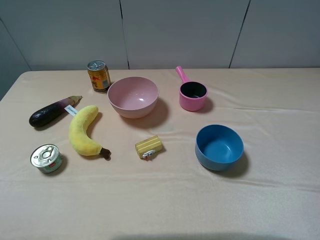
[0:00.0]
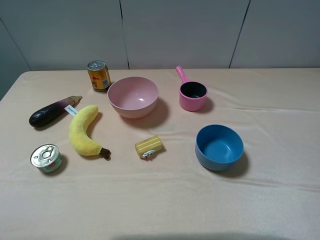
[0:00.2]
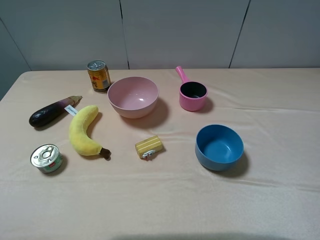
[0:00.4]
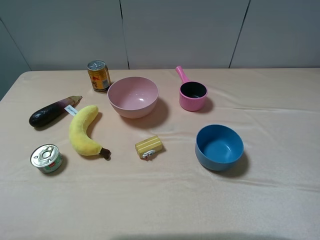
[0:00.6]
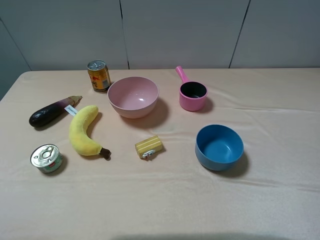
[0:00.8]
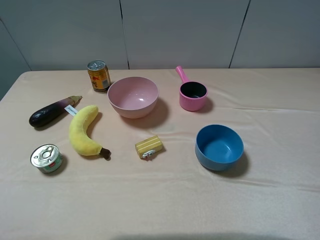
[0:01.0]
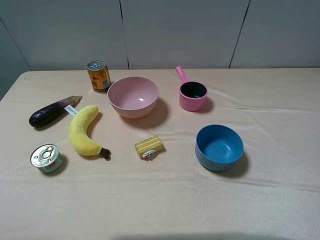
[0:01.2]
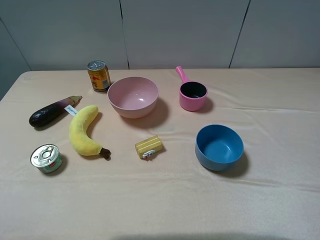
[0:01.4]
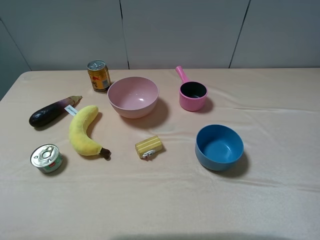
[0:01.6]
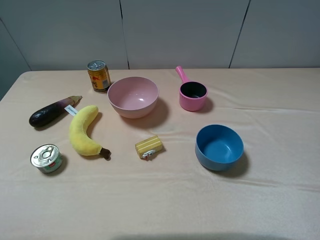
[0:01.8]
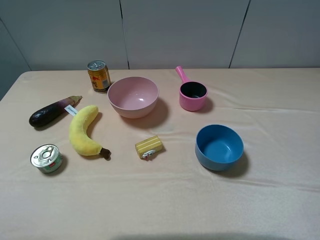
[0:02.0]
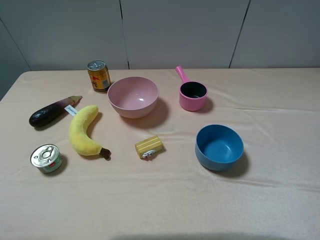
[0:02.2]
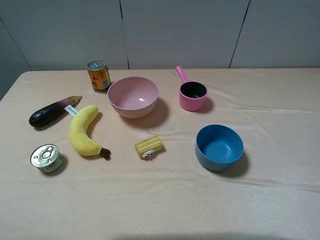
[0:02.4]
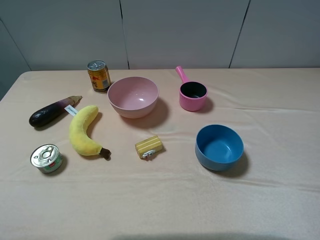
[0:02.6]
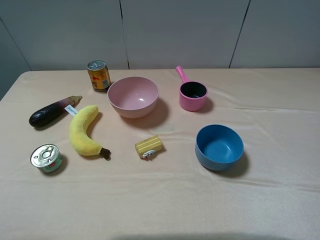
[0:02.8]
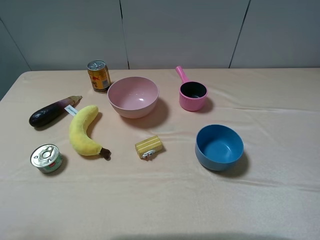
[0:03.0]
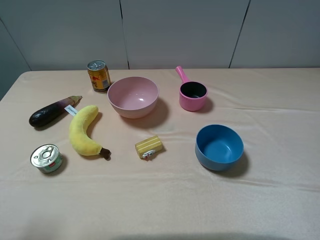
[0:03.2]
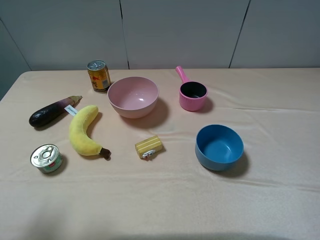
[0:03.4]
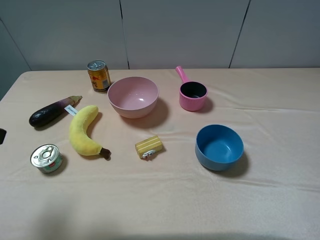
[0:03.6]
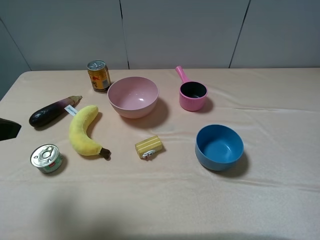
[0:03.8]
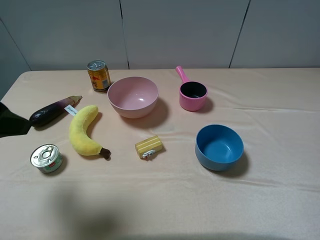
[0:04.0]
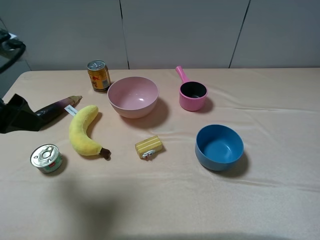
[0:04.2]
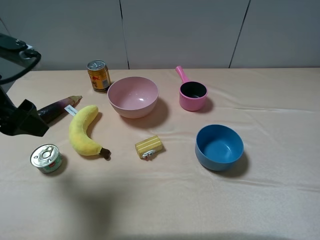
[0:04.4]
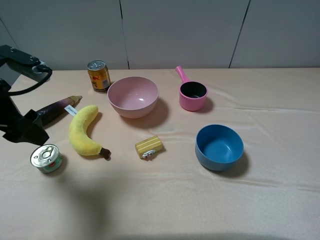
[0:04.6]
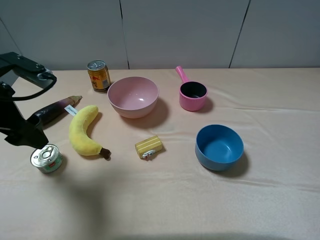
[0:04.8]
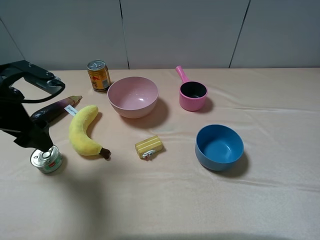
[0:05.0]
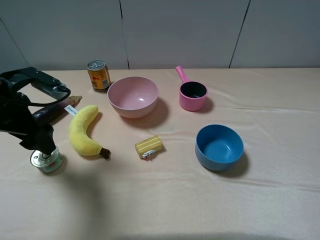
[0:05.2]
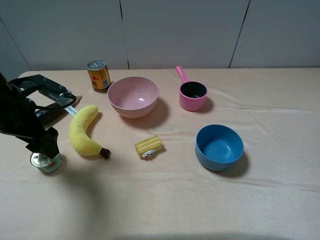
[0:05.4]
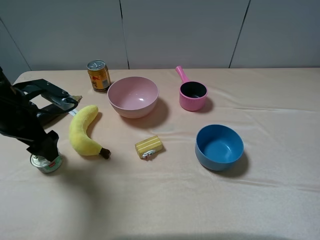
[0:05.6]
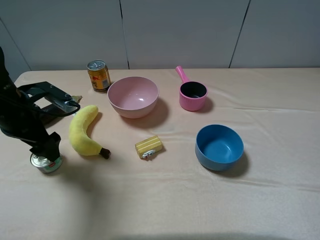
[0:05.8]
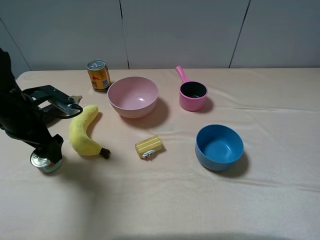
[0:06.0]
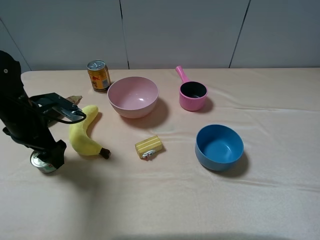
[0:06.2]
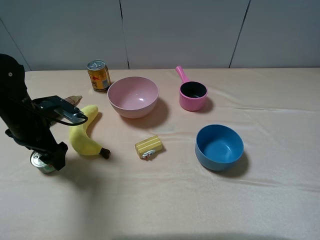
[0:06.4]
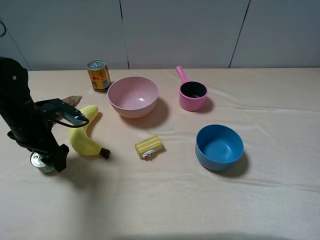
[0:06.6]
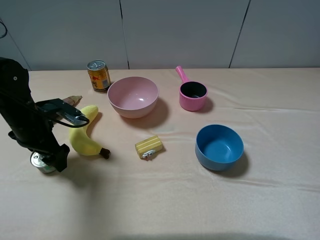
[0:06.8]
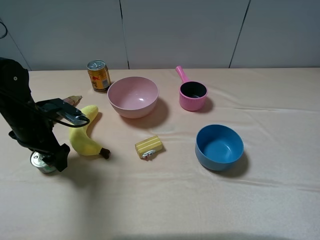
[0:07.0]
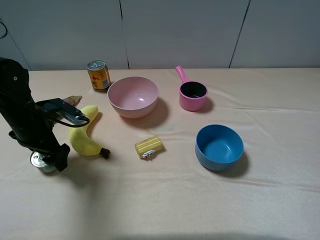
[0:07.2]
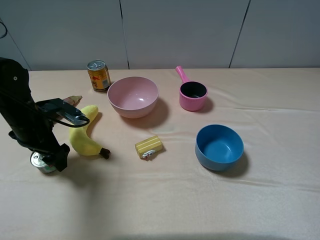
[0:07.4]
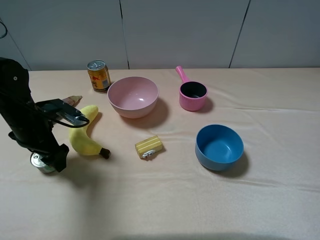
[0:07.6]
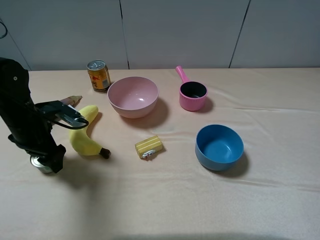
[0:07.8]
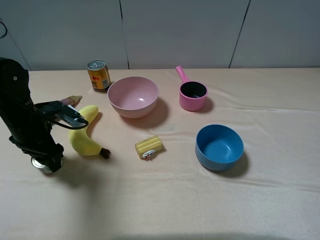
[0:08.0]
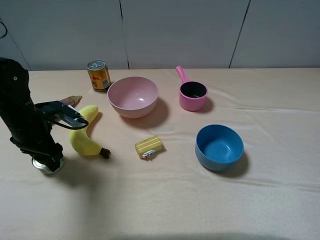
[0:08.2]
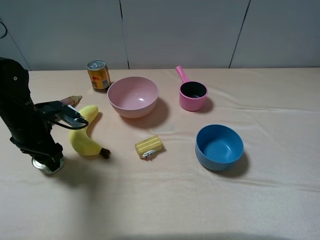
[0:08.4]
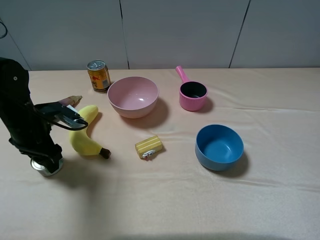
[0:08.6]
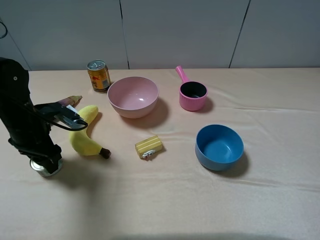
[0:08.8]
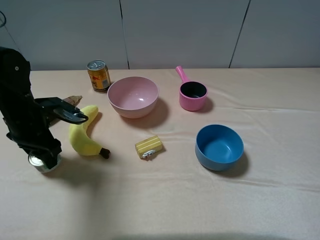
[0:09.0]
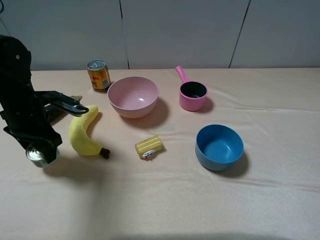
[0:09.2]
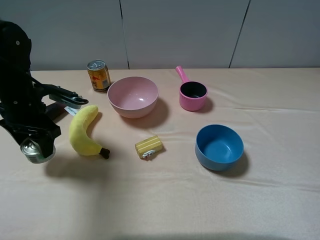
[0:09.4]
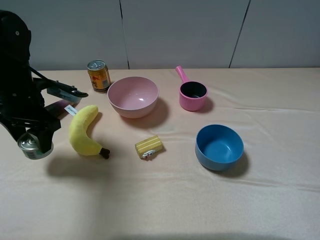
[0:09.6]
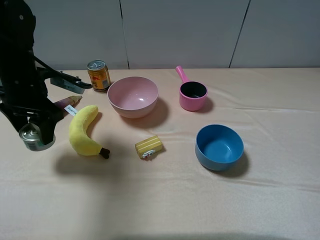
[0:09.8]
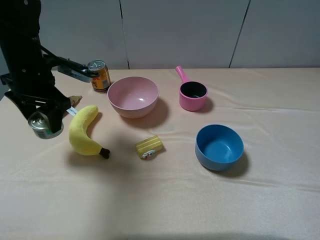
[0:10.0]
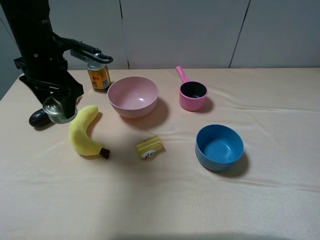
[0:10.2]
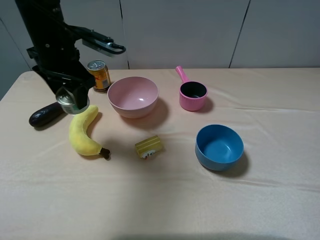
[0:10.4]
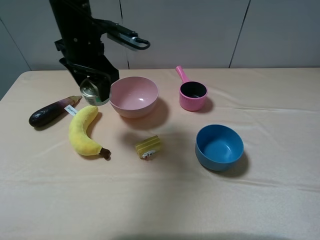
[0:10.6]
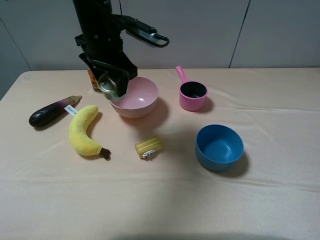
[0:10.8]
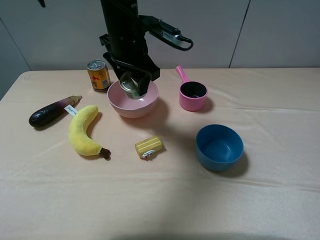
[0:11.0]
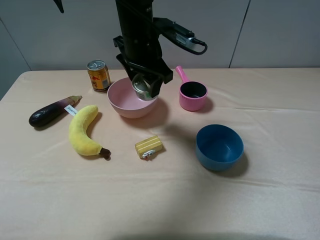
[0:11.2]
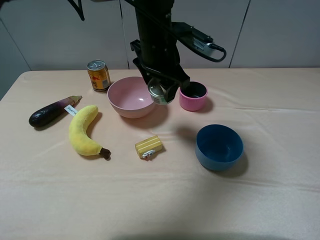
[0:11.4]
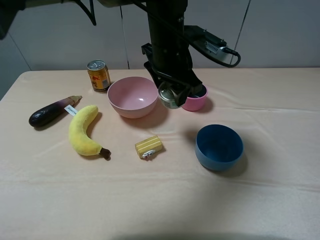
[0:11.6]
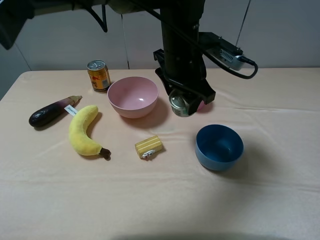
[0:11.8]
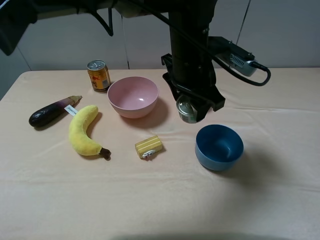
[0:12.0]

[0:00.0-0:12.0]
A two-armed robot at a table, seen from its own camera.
Task of the whole recording: pick up an item with a gripper and place it in a random container on the table.
Step, 0:00.0 to 0:08.6: Grasp the tin with the left gripper.
0:00.0 to 0:01.6: Both grippers stay about where they are.
0:03.0 to 0:04.4: The left gripper goes approximately 15 cm forward.
0:04.4 to 0:06.0: The left gripper goes approximately 10 cm downward and forward.
0:06.0 to 0:07.6: There are only small adjustments of the grippers.
0:07.6 to 0:09.0: The left gripper closes up.
0:09.0 to 0:10.4: The left gripper moves upward, to the right and forward, some 15 cm.
0:10.4 to 0:12.0: The left gripper moves to the right, some 25 cm.

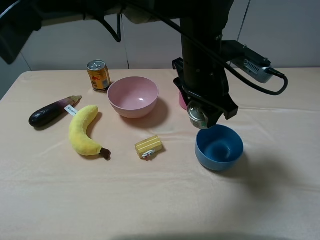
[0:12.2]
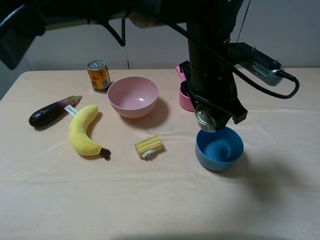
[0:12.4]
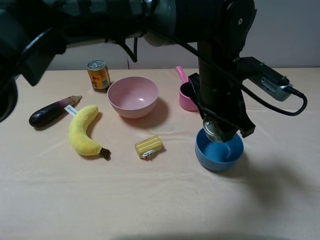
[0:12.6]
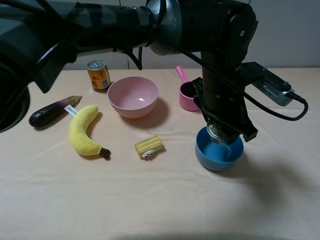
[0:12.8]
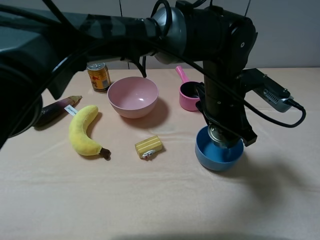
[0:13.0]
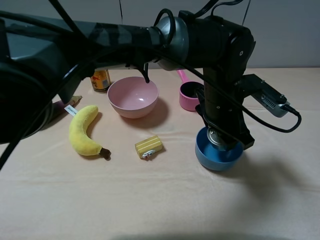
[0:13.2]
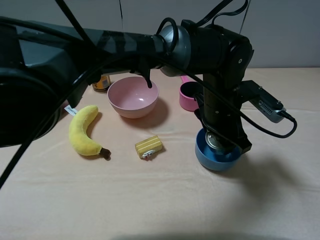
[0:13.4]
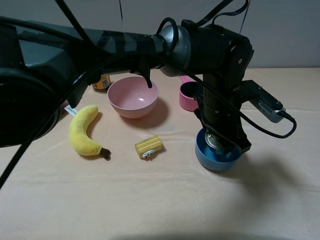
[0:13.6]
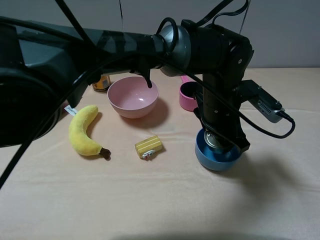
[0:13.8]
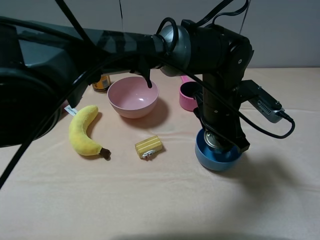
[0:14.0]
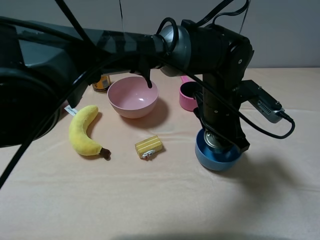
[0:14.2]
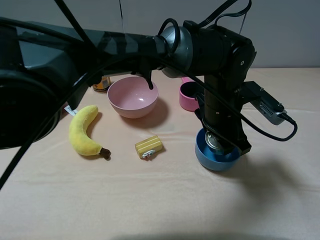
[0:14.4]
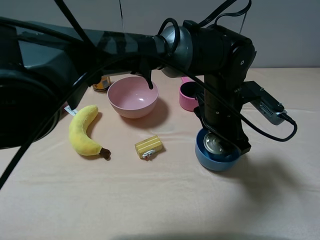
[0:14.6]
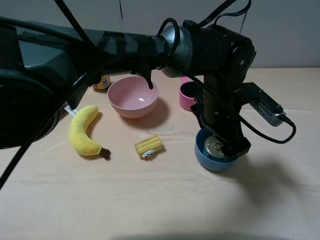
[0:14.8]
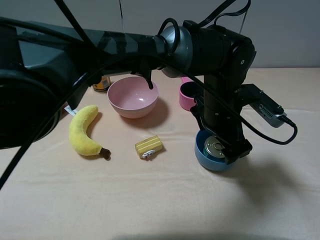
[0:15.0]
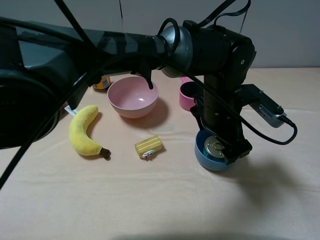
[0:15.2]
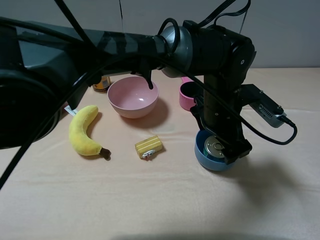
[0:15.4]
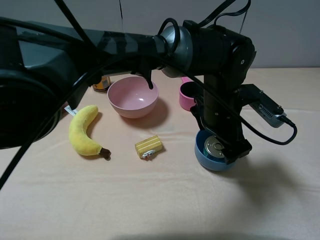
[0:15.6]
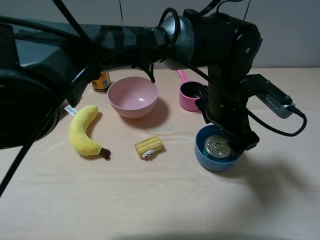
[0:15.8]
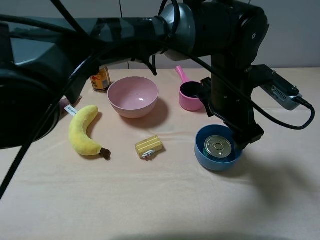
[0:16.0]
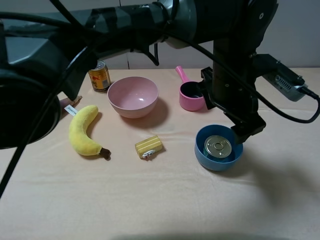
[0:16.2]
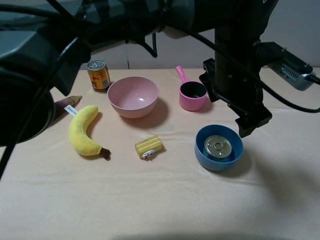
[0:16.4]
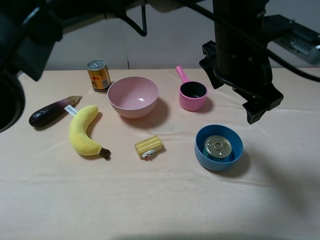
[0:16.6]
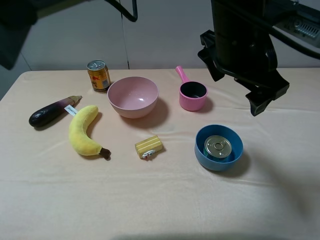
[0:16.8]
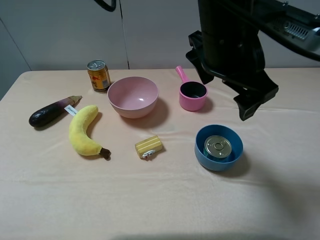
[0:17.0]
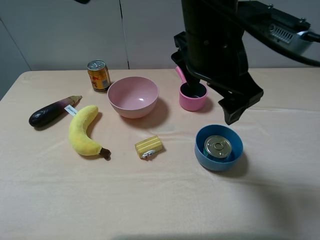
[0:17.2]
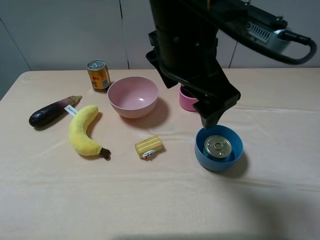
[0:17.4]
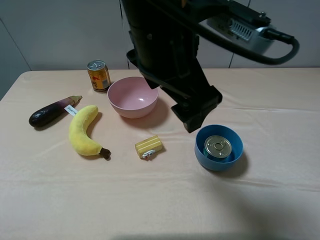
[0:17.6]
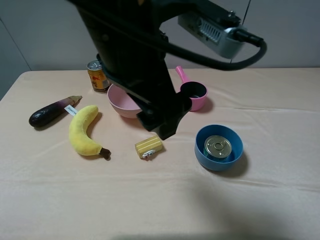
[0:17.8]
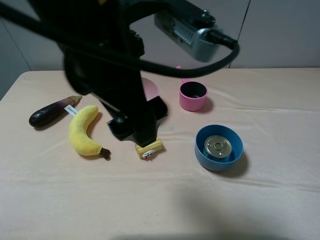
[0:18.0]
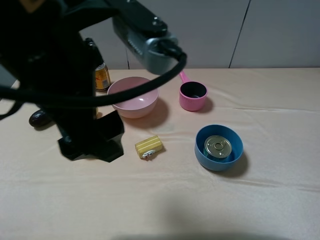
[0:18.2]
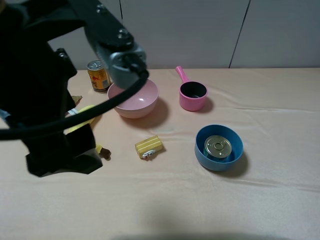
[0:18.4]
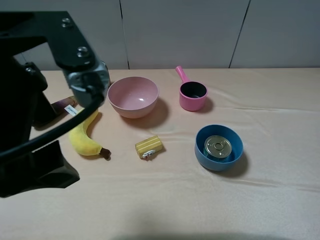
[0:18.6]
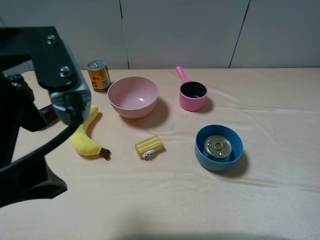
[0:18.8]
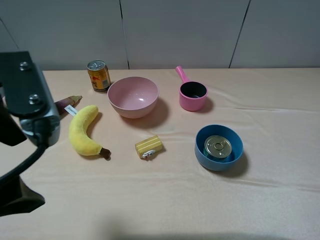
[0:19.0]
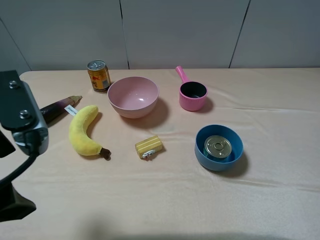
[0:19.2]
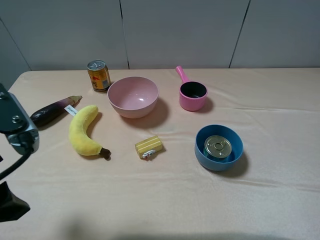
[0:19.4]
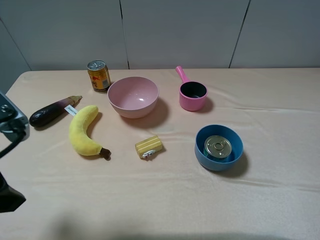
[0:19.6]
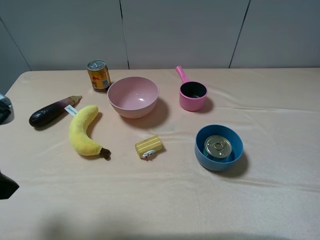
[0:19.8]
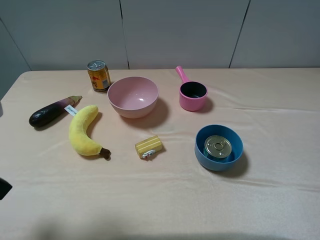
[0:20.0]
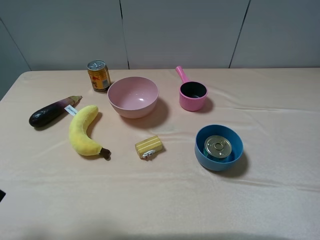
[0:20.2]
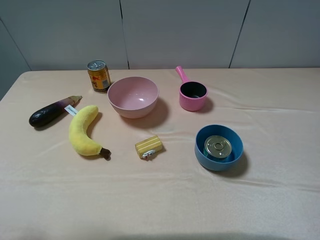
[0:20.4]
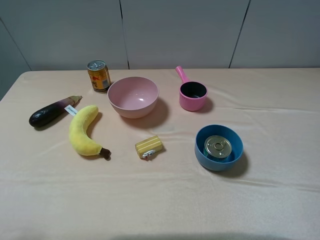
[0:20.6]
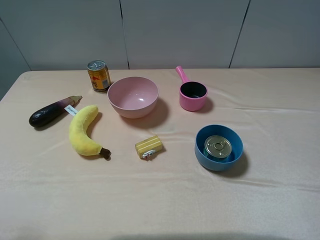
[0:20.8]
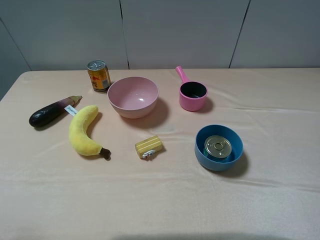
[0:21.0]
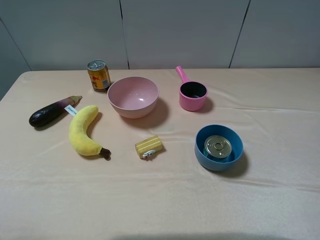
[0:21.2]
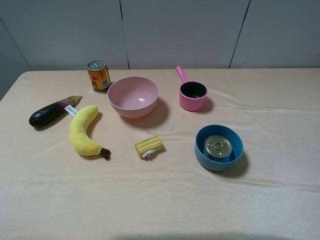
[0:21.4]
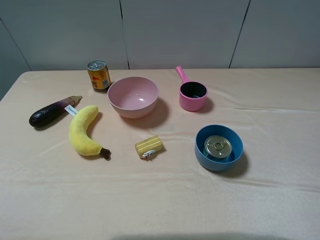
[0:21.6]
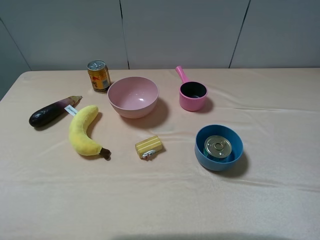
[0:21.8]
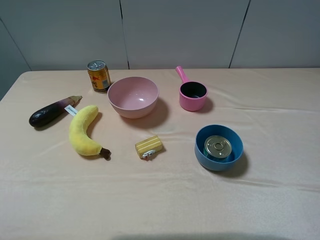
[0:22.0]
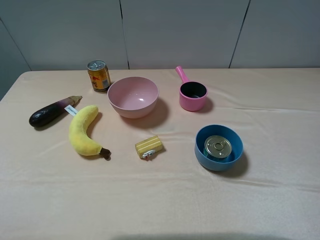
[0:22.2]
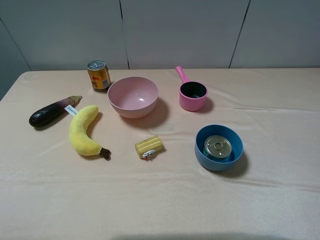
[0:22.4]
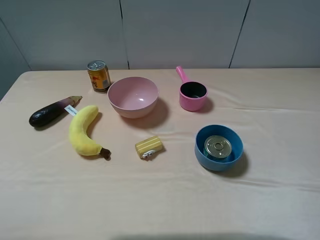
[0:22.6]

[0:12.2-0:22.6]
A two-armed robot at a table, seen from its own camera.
Task of the whole recording: pick up an item with a gripper and place it in a random container on the table.
Step, 0:12.2 to 0:15.2: Place the tin into the blue bowl with the left gripper.
0:12.2 to 0:13.6: The left gripper heads downward, covering some 5 cm.
0:13.6 to 0:15.2: The left gripper opens its fingers.
0:15.2 to 0:16.6: The left gripper travels upward by approximately 10 cm.
0:16.6 to 0:18.2: The left gripper moves to the left and backward, roughly 25 cm.
0:18.2 to 0:19.6: The left gripper travels to the left and downward by about 15 cm.
0:19.6 to 0:21.2: The left gripper shifts roughly 10 cm backward and to the left.
